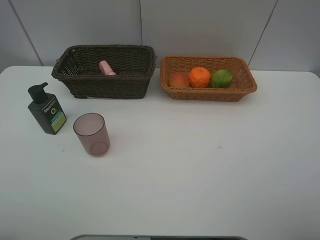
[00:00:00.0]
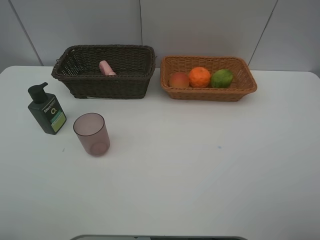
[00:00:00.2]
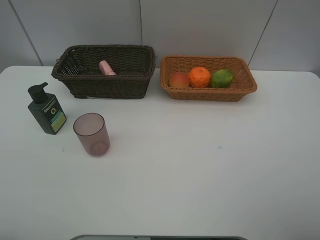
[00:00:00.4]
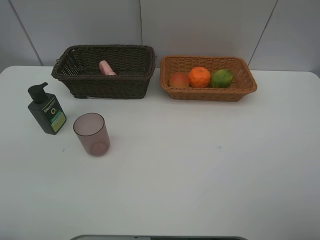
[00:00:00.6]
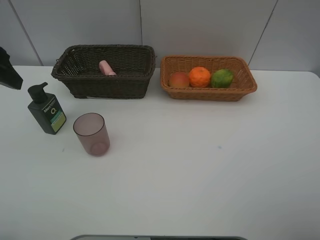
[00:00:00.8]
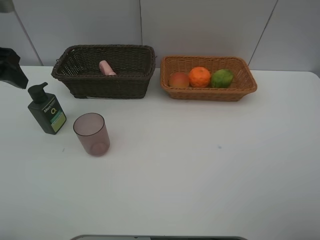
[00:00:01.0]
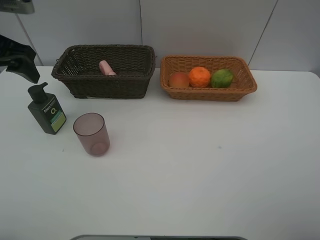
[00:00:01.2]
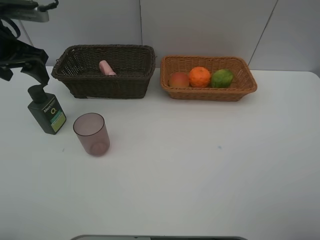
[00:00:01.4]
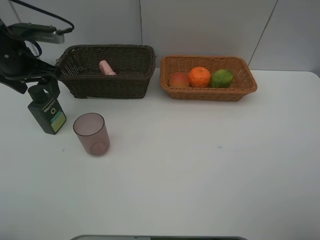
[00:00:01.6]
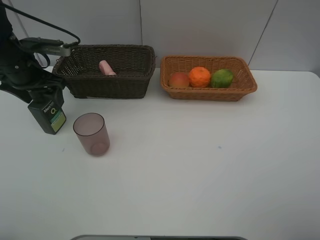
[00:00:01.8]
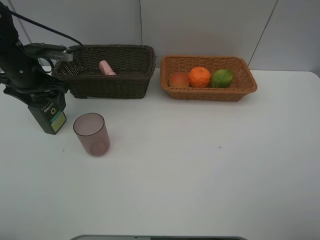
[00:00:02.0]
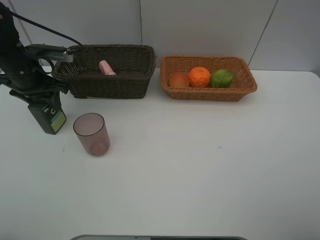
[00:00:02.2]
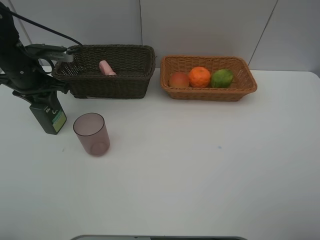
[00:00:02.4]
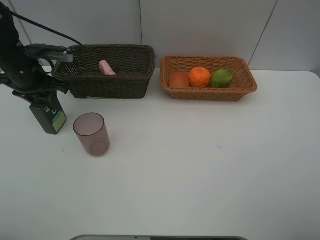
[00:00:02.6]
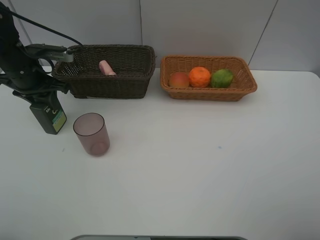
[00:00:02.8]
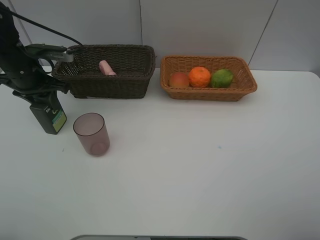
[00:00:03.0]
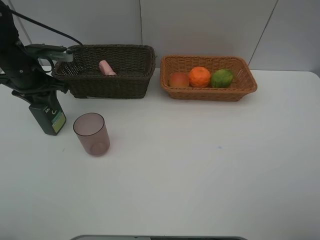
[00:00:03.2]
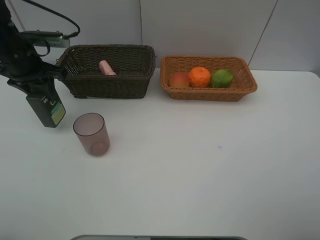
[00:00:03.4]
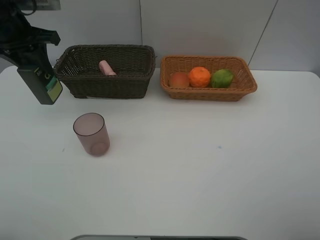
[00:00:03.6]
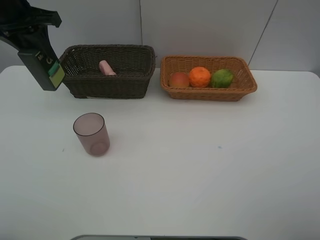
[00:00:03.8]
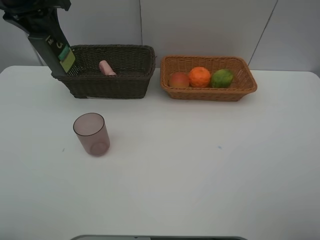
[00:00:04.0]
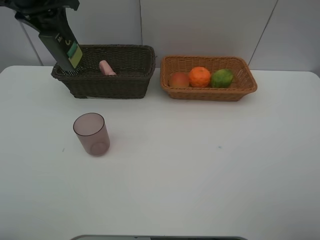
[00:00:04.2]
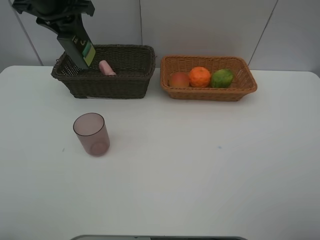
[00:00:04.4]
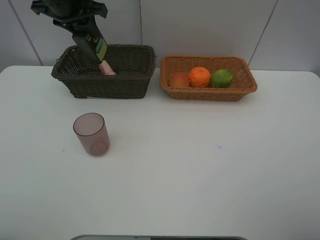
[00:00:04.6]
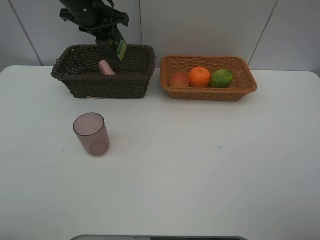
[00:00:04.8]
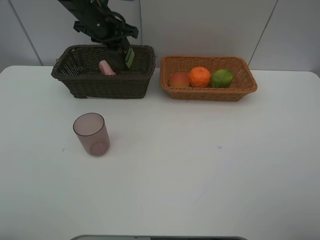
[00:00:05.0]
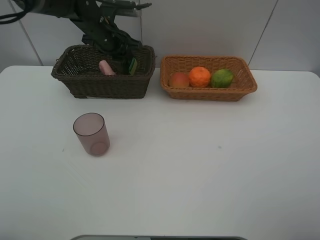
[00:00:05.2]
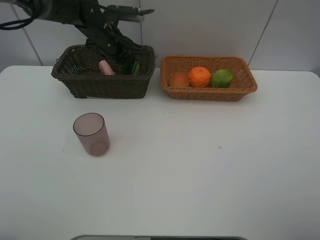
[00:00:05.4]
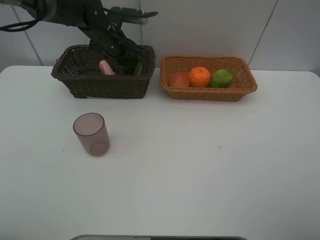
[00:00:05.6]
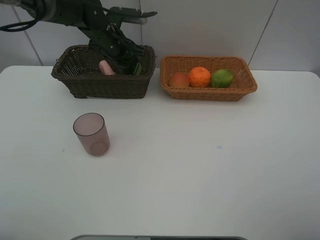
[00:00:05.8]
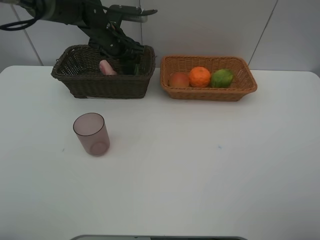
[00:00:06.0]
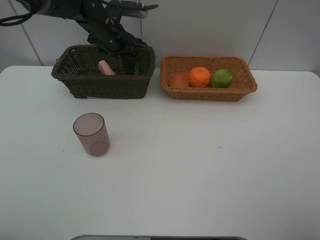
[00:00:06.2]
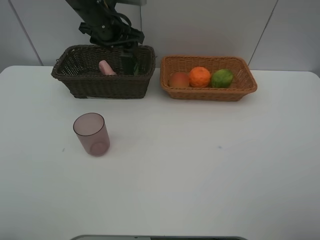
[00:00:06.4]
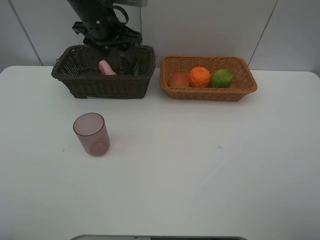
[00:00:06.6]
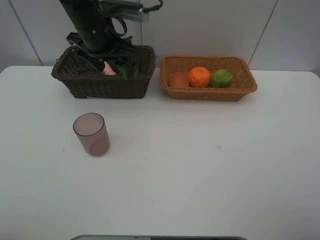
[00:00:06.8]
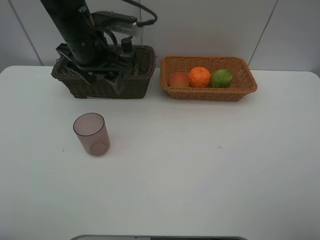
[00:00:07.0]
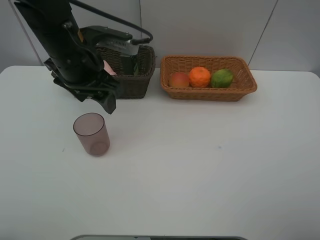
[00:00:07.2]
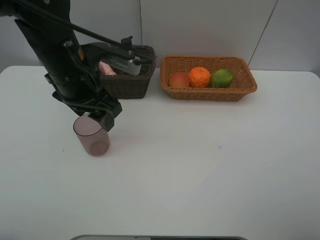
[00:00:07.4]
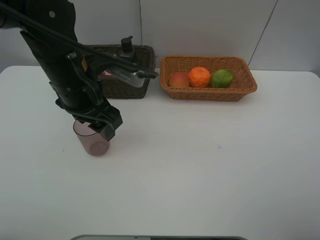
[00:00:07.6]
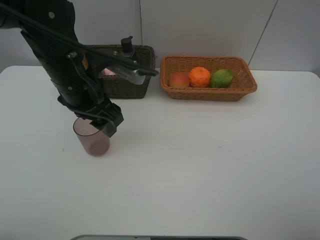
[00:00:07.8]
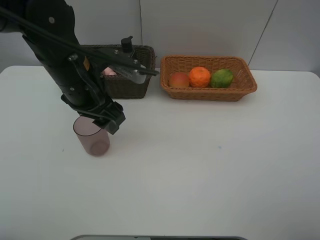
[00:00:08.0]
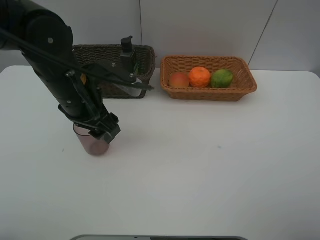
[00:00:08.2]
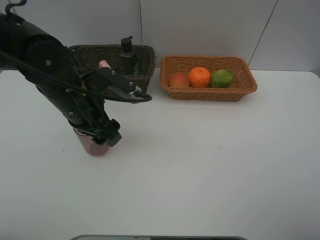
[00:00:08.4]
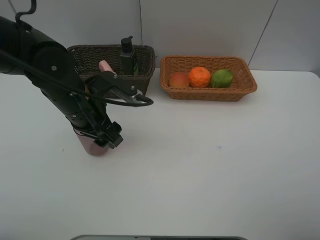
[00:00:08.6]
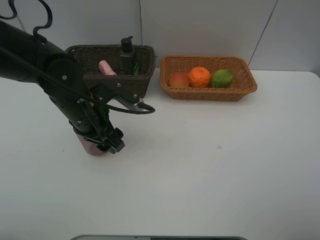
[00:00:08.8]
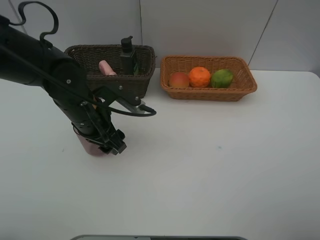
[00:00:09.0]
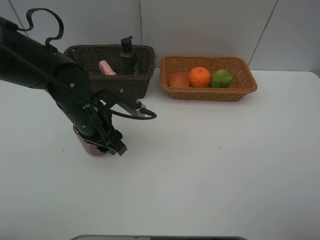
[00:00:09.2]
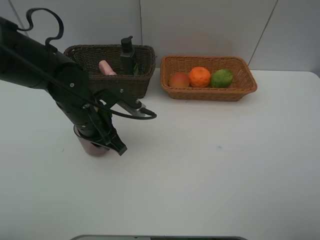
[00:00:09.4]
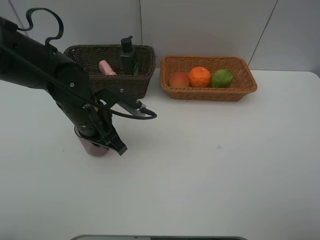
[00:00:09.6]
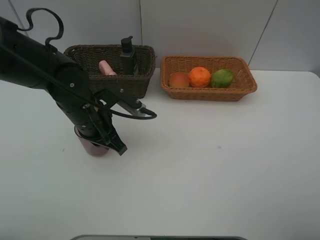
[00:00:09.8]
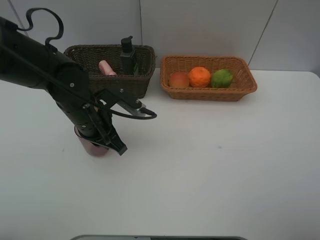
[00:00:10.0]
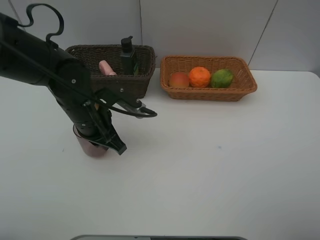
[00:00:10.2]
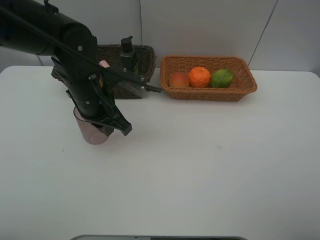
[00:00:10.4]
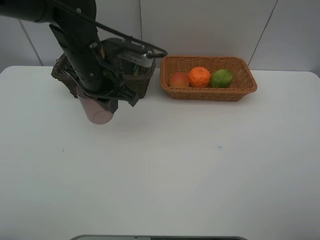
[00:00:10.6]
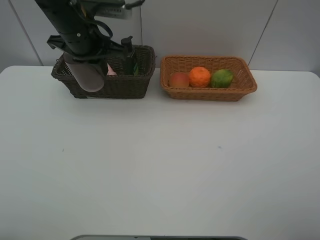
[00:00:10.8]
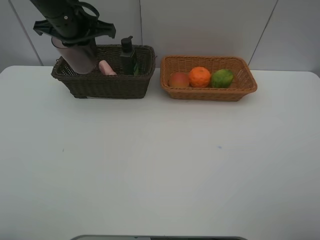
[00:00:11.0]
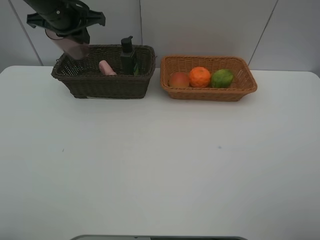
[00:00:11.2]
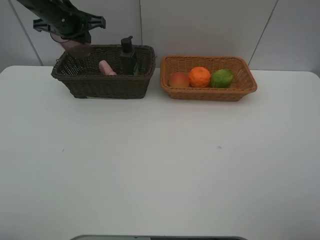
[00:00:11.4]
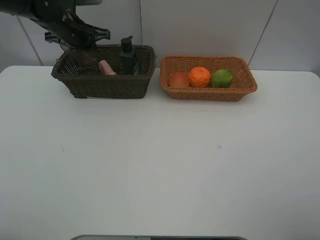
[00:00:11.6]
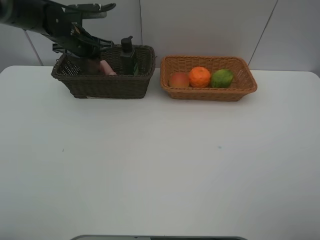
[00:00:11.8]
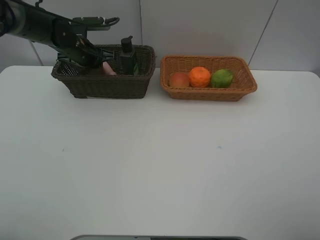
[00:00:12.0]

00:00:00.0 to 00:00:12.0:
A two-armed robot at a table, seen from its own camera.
Task of the whole recording: place multiple objects separately in different baskets.
00:00:00.0 to 00:00:01.6: The left gripper shifts roughly 30 cm forward.
00:00:01.6 to 00:00:03.0: The left gripper closes.
00:00:03.0 to 00:00:04.4: The left gripper is displaced upward, to the right and forward by some 15 cm.
00:00:04.4 to 00:00:06.0: The left gripper moves downward and to the right, approximately 15 cm, and opens.
00:00:06.0 to 00:00:07.6: The left gripper is displaced backward by roughly 20 cm.
00:00:07.6 to 00:00:09.0: The left gripper travels downward by roughly 10 cm.
00:00:09.0 to 00:00:10.4: The left gripper moves some 5 cm, and closes its fingers.
00:00:10.4 to 00:00:12.0: The left gripper moves forward and to the left, approximately 20 cm.

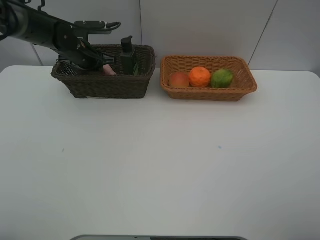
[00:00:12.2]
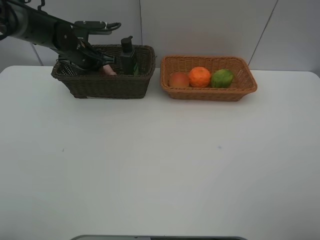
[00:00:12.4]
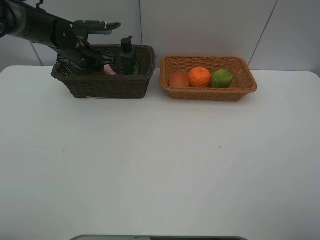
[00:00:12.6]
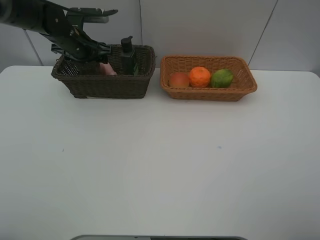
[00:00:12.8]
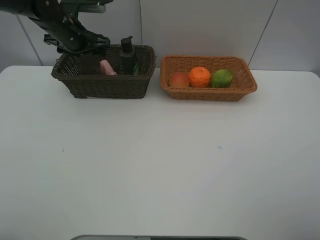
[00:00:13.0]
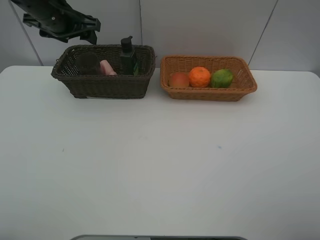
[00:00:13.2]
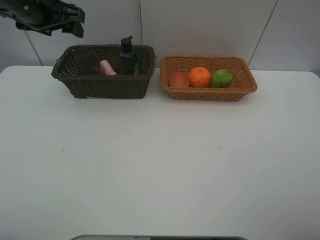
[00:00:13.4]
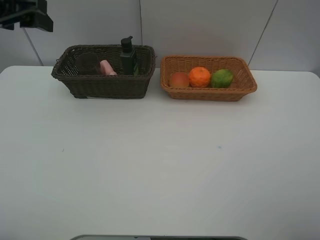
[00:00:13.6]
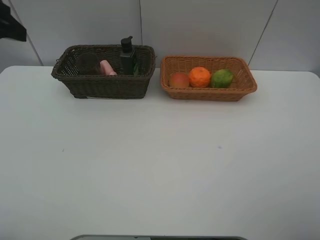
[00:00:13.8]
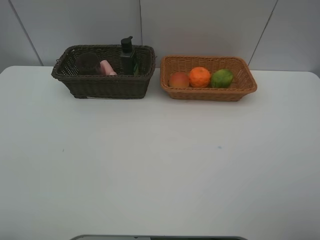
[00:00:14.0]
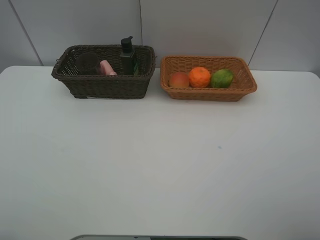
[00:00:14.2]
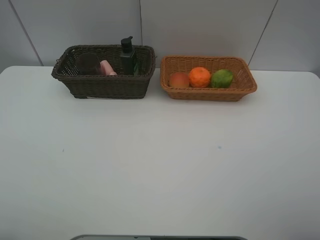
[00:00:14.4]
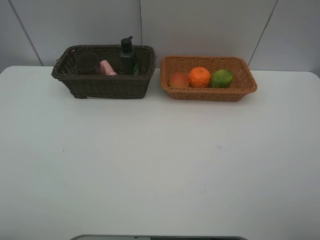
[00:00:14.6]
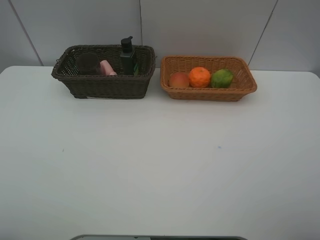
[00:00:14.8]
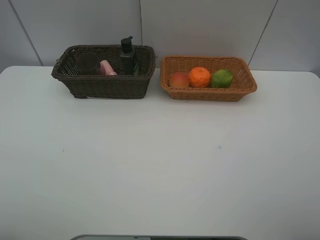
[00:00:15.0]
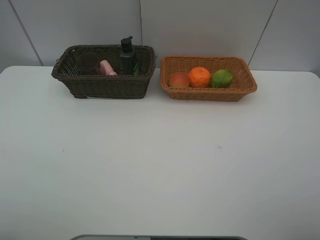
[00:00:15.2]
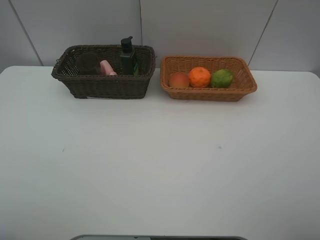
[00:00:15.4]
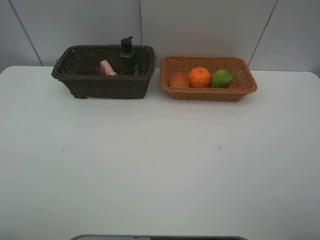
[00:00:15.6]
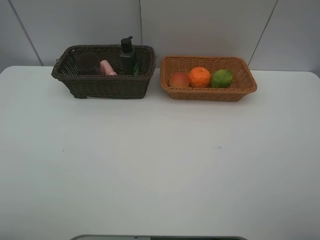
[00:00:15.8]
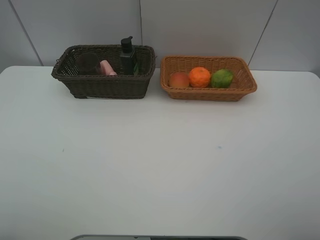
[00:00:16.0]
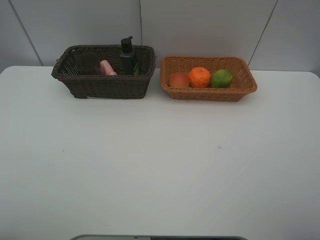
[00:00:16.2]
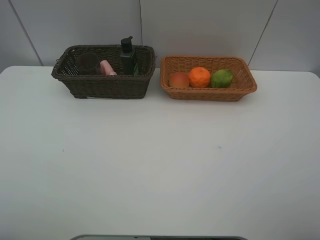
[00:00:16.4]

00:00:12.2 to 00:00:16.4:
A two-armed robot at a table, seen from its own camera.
Task of the whole recording: place multiple objects separately in different baskets.
00:00:12.2 to 00:00:13.6: The left gripper moves upward and backward, some 30 cm, and opens its fingers.
00:00:13.6 to 00:00:15.0: The left gripper moves backward, approximately 25 cm.
